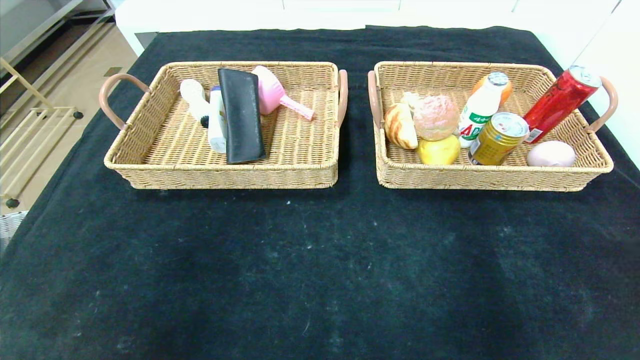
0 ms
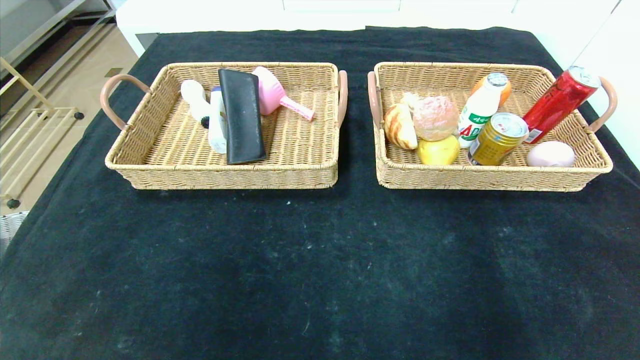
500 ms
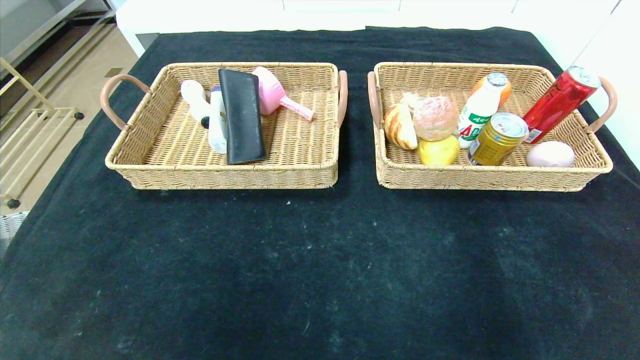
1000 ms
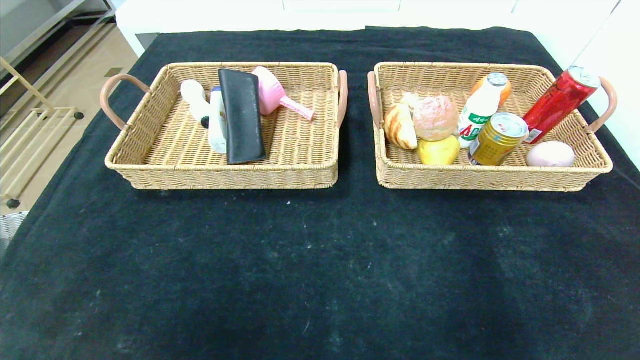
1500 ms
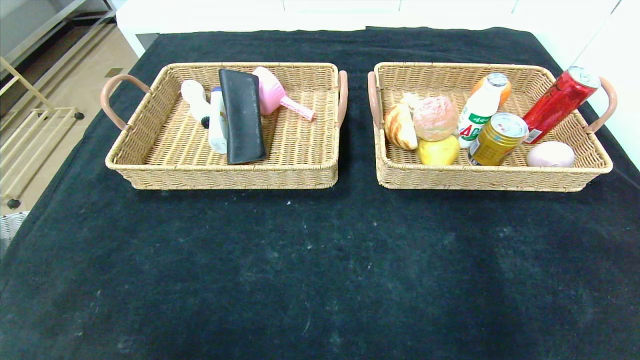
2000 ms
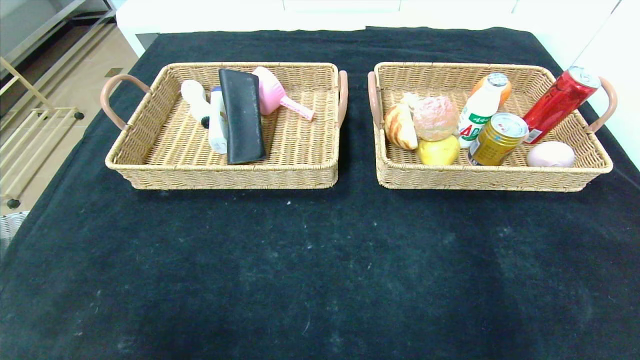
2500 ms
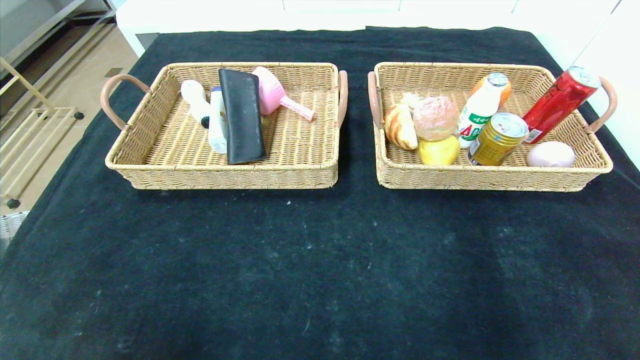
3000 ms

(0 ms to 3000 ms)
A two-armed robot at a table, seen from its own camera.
0 ms - 1500 ms: Both grippers travel together backward, approximately 10 cm.

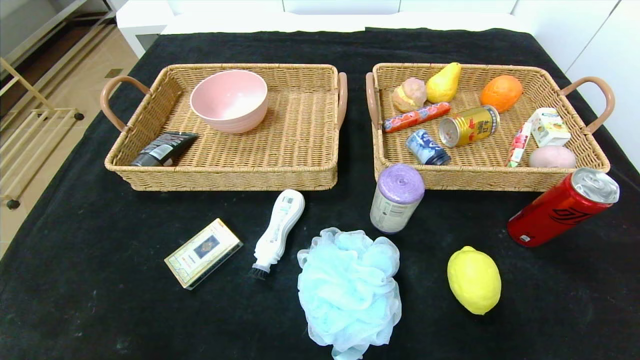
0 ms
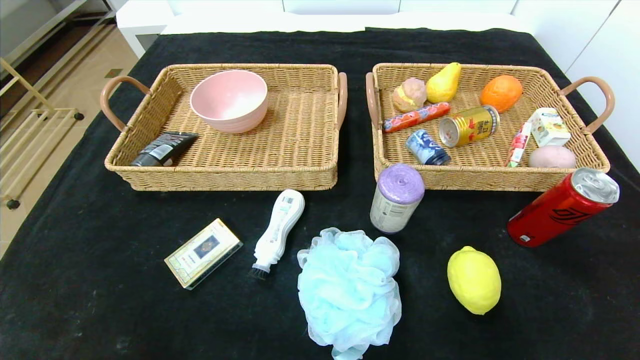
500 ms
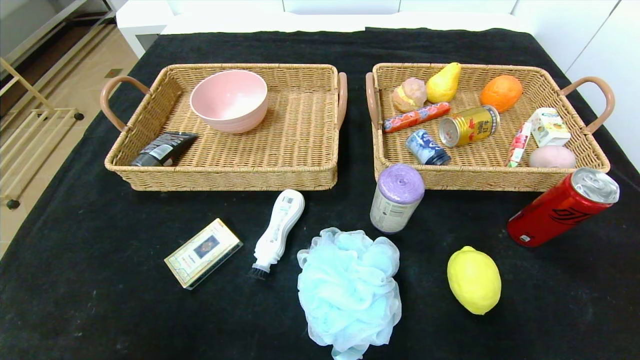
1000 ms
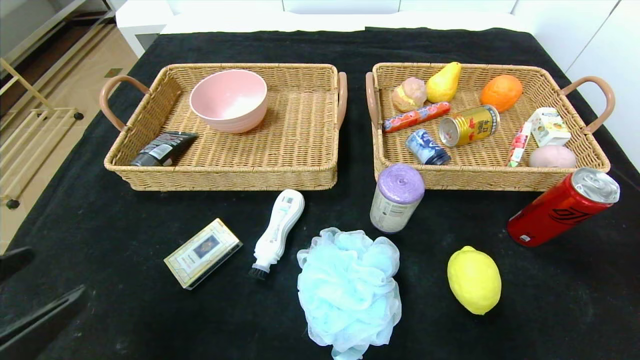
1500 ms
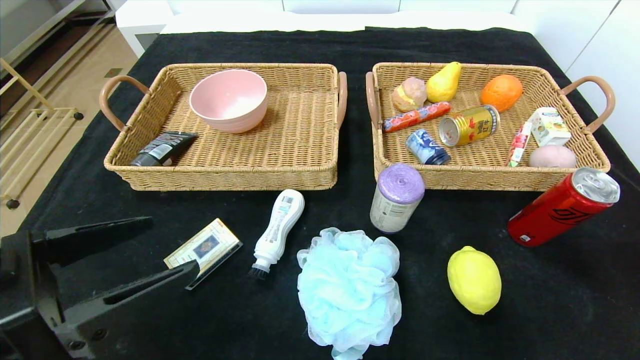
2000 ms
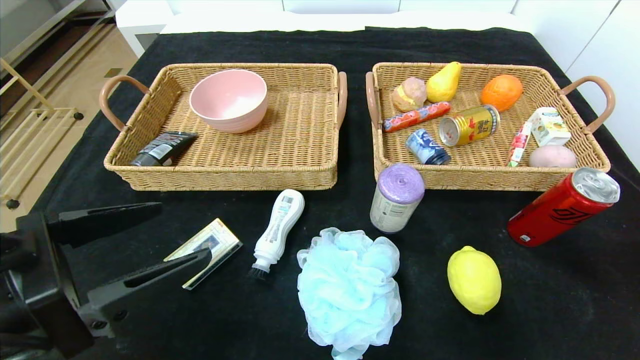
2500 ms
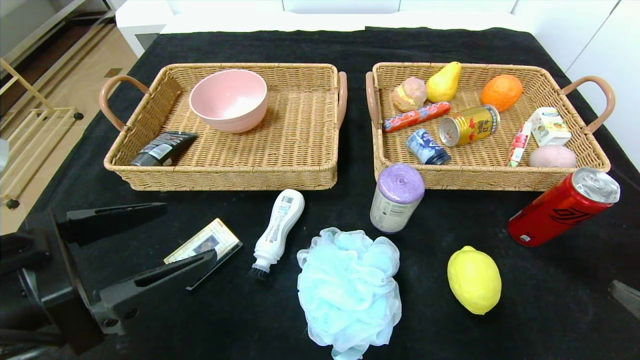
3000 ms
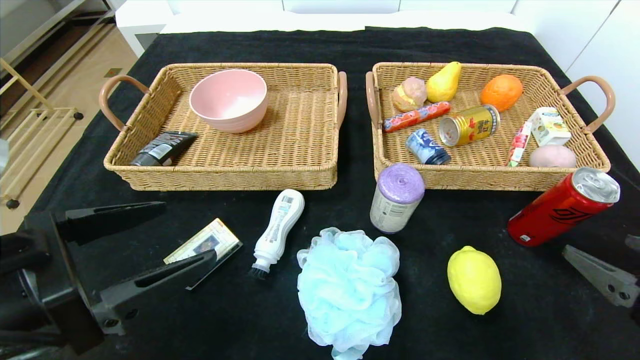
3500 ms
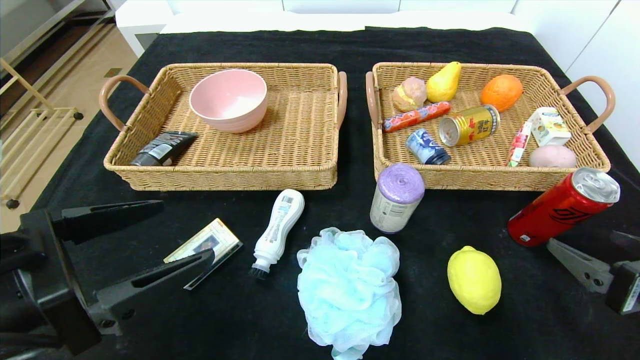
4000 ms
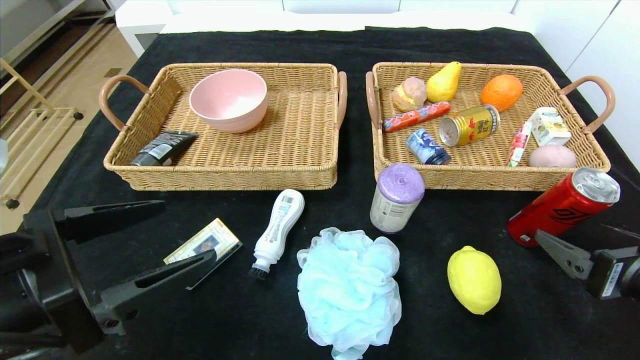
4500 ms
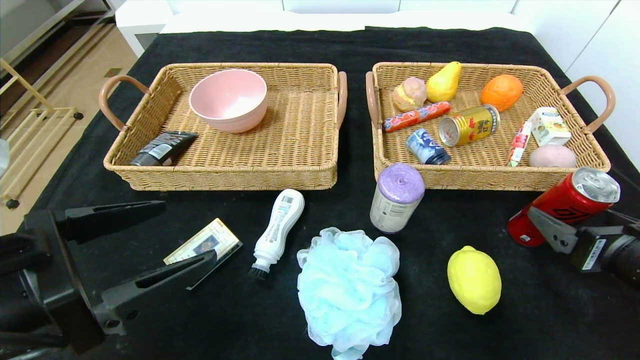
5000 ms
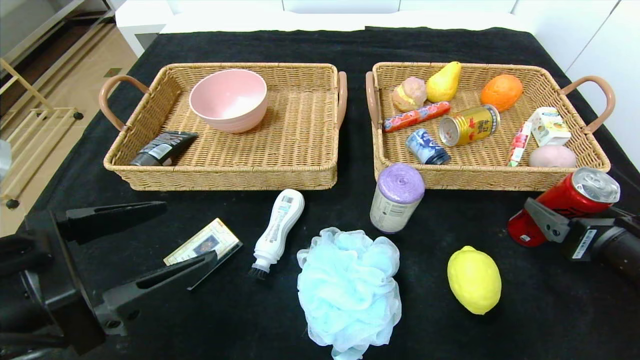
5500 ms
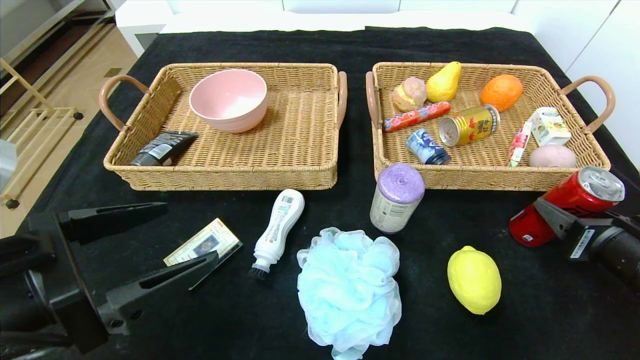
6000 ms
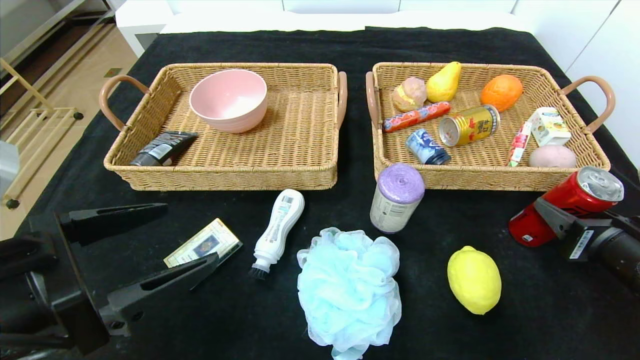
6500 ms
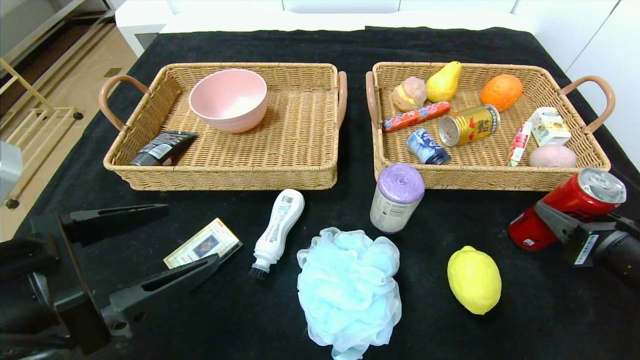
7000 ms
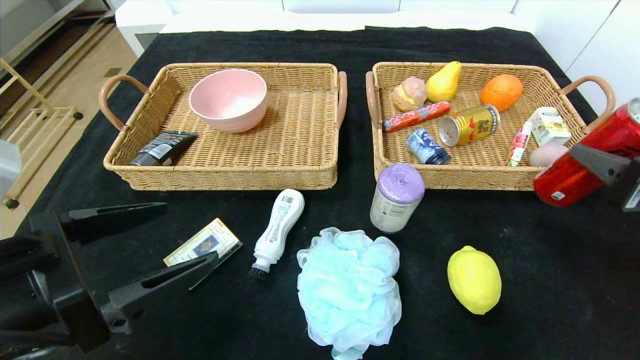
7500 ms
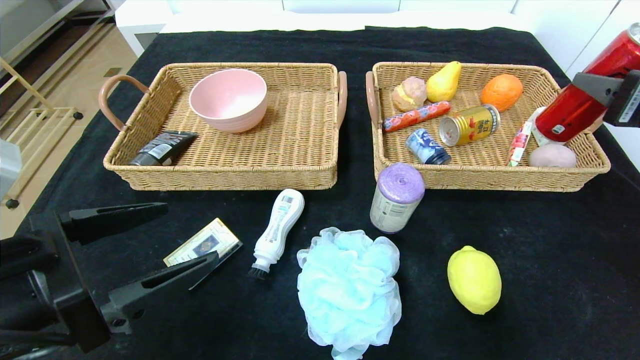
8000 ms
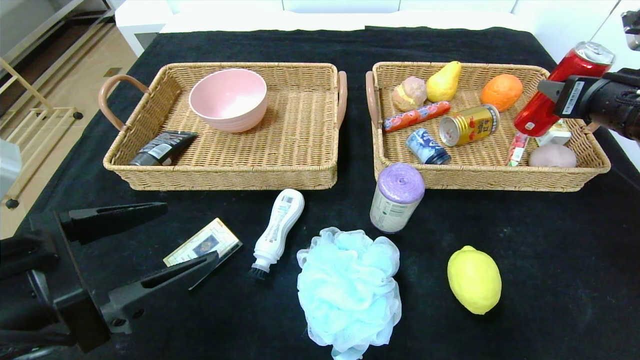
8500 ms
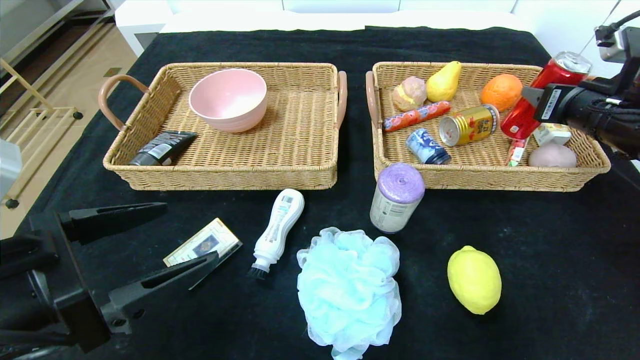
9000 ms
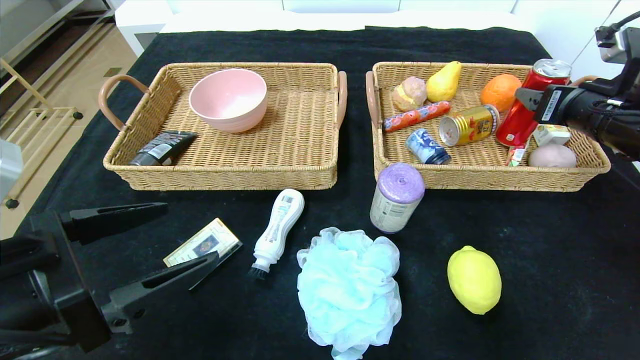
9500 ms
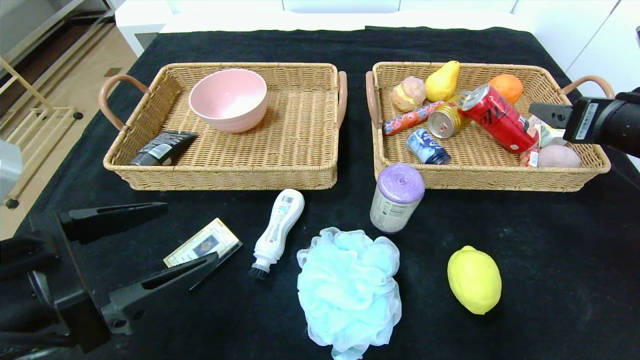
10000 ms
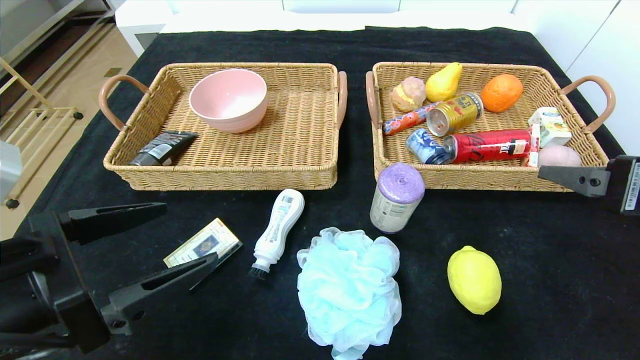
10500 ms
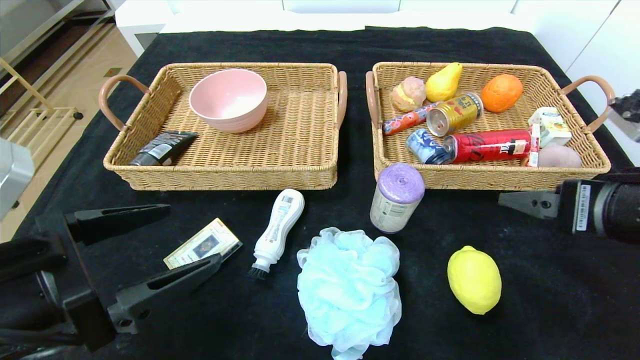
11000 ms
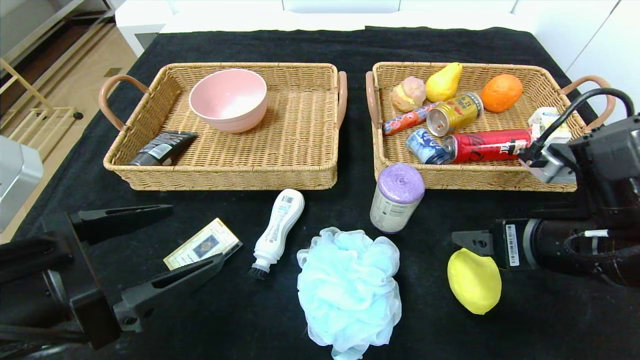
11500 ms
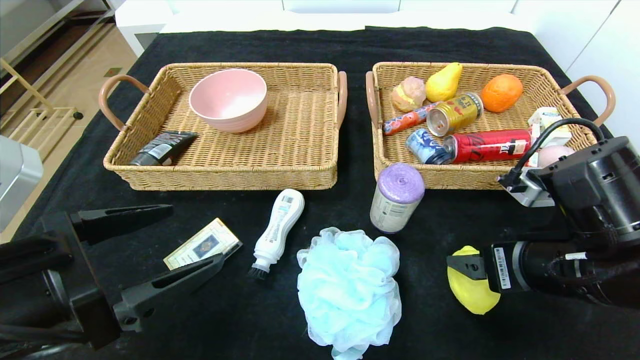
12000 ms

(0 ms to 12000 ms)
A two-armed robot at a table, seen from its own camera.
Step, 0 ms - 10500 ms: Pick up the canned cola and put it in the right basket.
0 ms - 2000 ms: Both grippers move upward and forward, roughly 20 cm.
2000 ms - 4000 ms: The right gripper is displaced forward by about 10 cm.
4000 ms - 6000 ms: The right gripper goes some 5 cm forward, and closes its fingers.
6000 ms - 8000 ms: The right gripper is displaced upward by approximately 15 cm.
8000 ms - 10000 ms: The right gripper goes forward and returns, approximately 10 cm each way, and opens up.
10000 ms - 12000 ms: The right gripper heads to the left, downward and backward, covering some 15 cm.

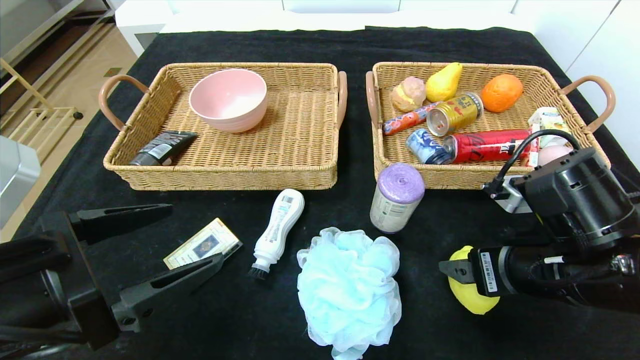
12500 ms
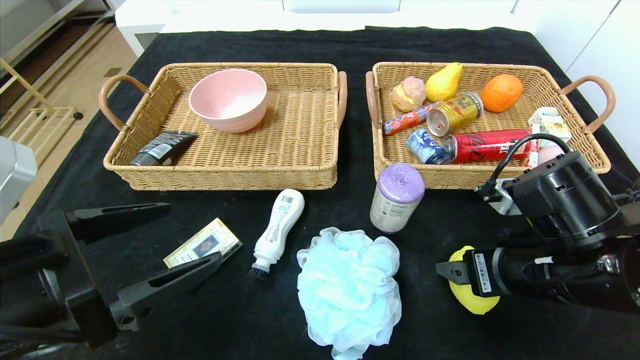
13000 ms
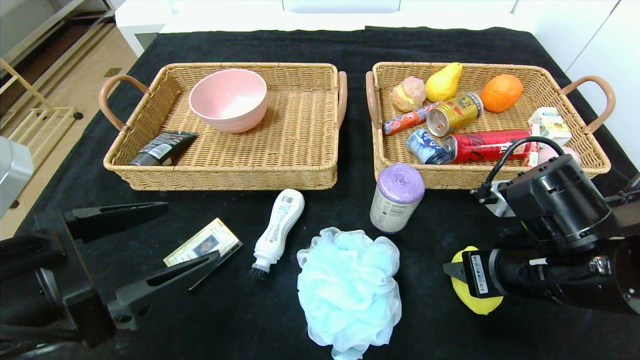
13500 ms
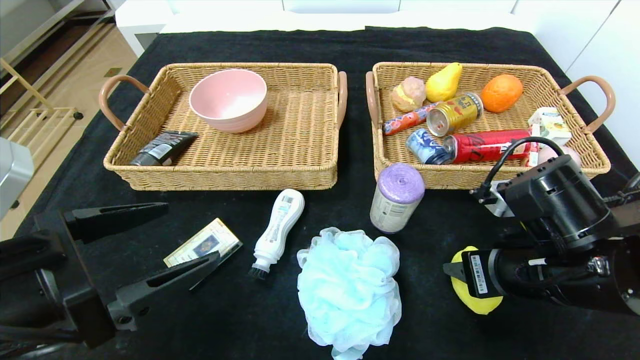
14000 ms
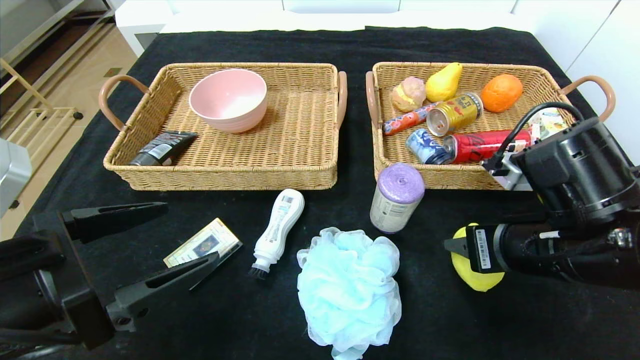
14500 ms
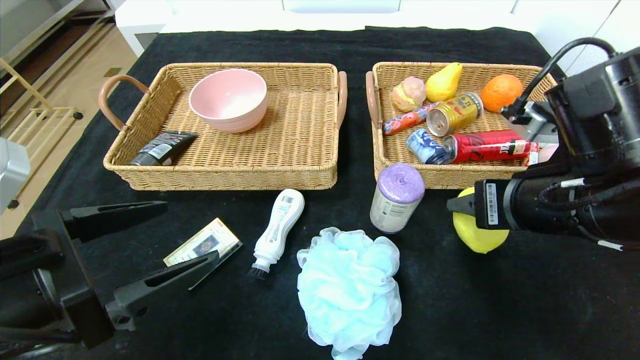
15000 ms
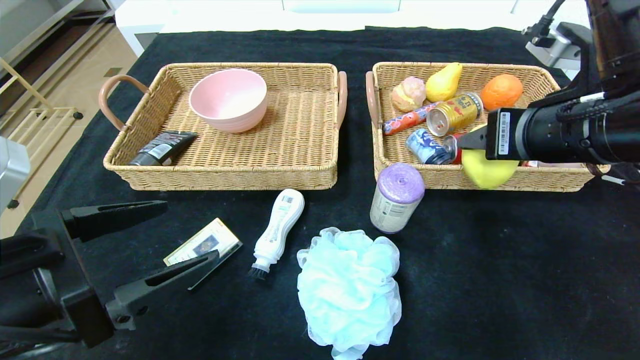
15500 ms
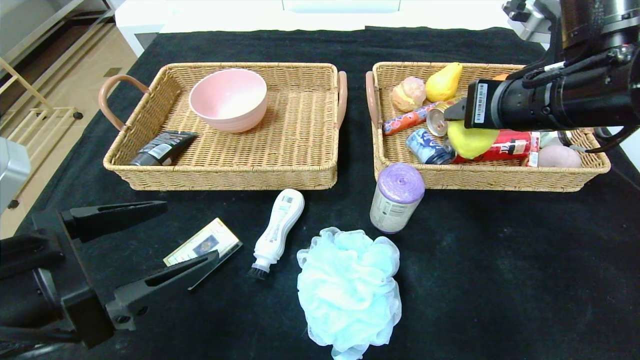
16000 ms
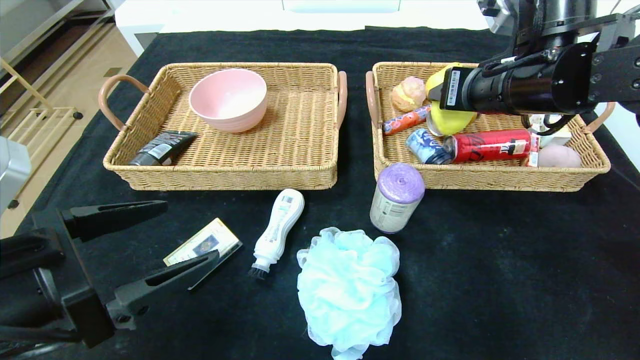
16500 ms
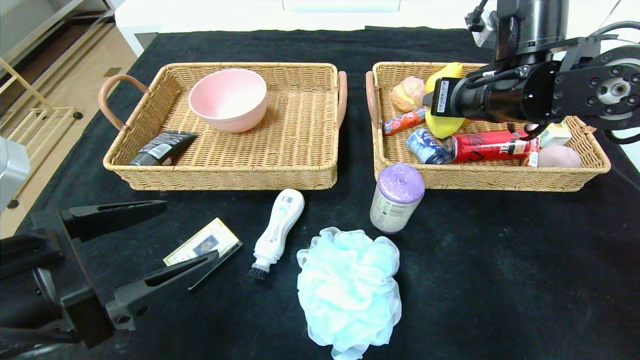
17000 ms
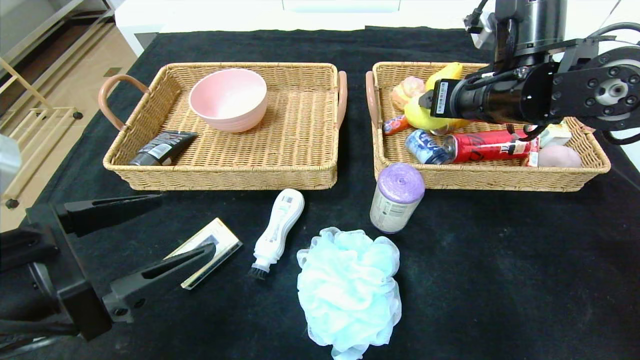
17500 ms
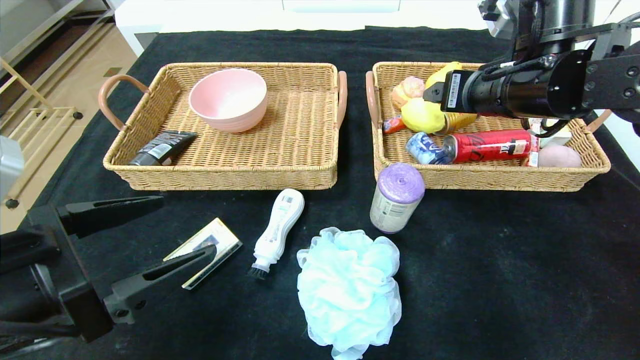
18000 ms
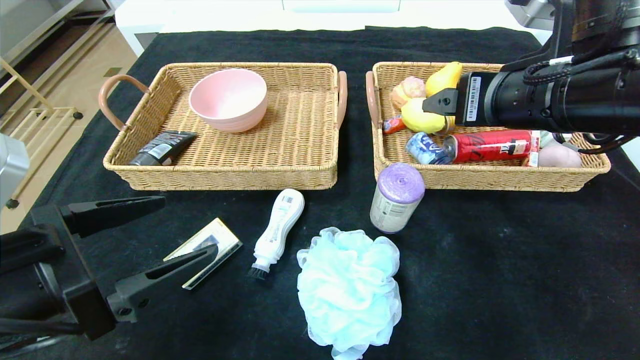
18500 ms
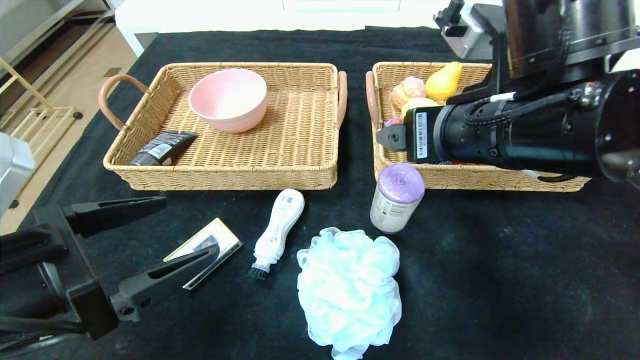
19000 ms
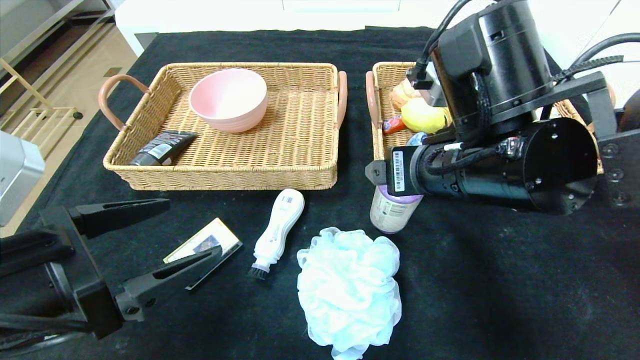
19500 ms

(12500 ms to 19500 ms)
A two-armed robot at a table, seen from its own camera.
Step, 12500 ms - 19000 ms: Pick up the lemon and put it in the right basket.
12500 ms - 14500 ms: The right gripper closes.
14500 ms - 16000 ms: The right gripper goes some 15 cm upward and forward.
16000 ms - 17500 ms: The right gripper goes about 5 cm forward, and opens its fingers.
17500 ms - 19500 ms: The right gripper travels backward and to the left by about 15 cm, and opens.
